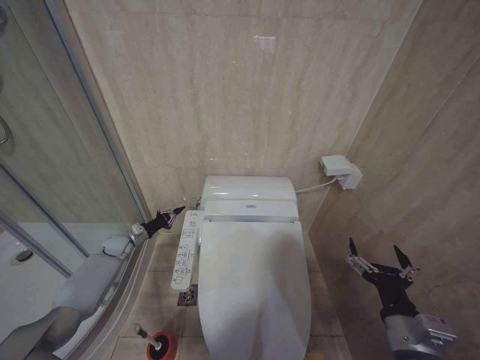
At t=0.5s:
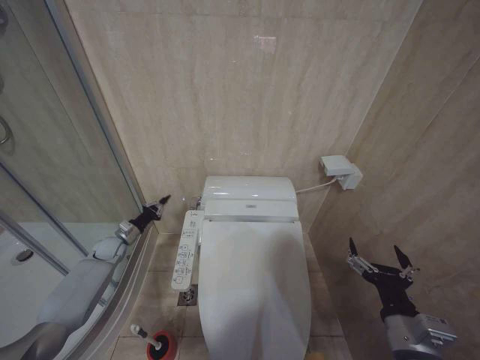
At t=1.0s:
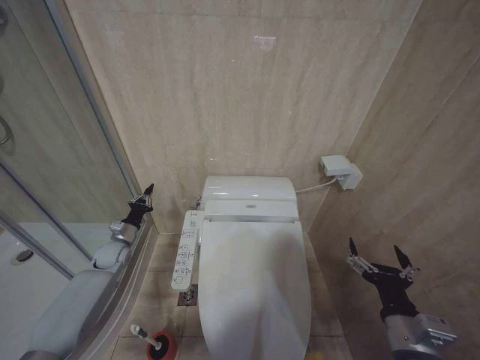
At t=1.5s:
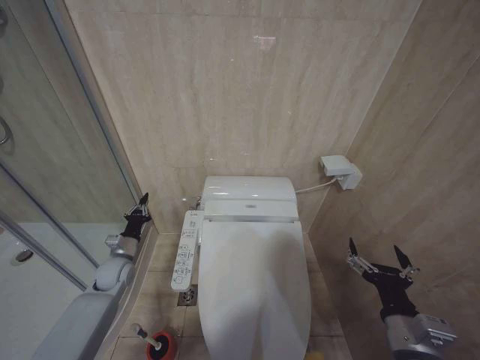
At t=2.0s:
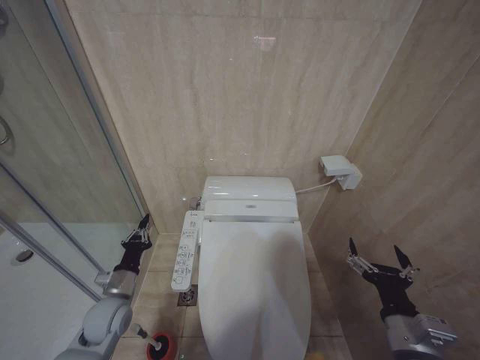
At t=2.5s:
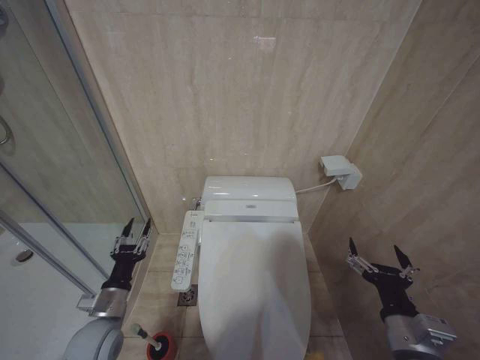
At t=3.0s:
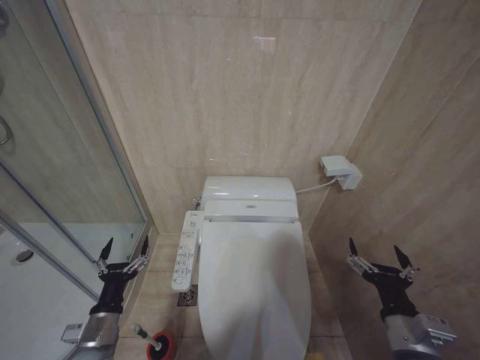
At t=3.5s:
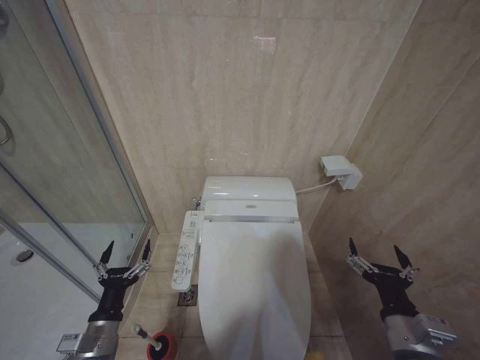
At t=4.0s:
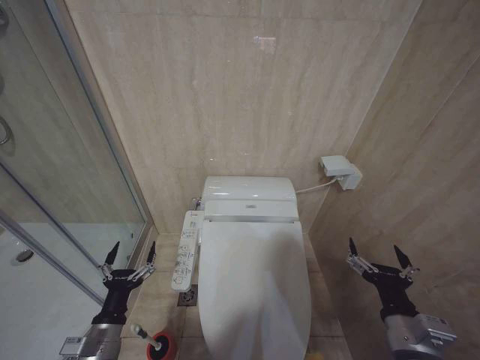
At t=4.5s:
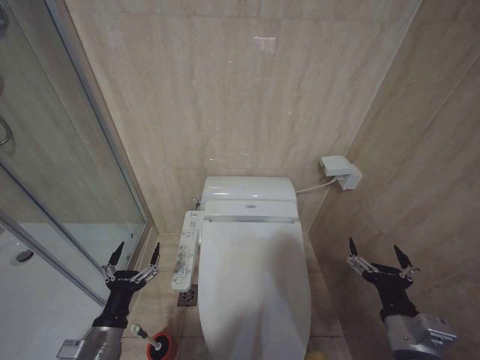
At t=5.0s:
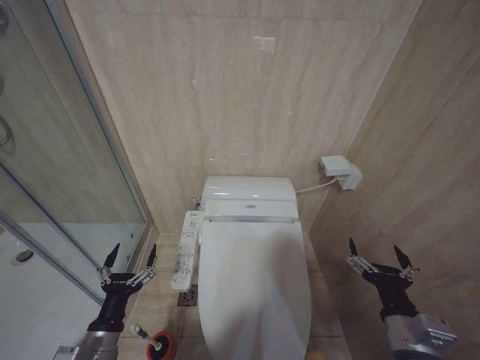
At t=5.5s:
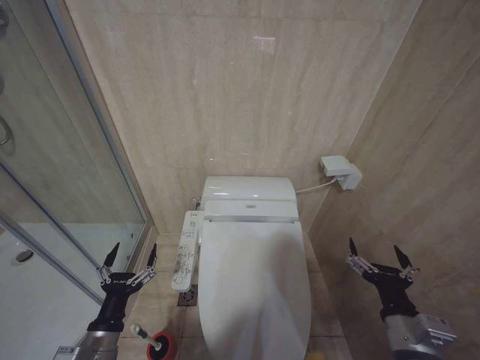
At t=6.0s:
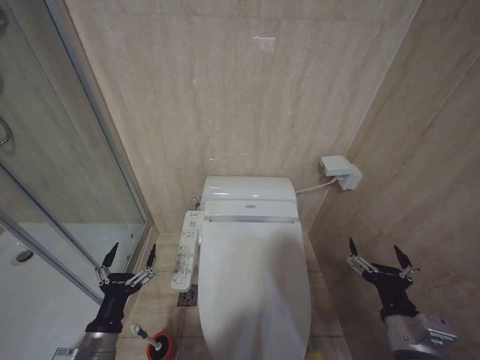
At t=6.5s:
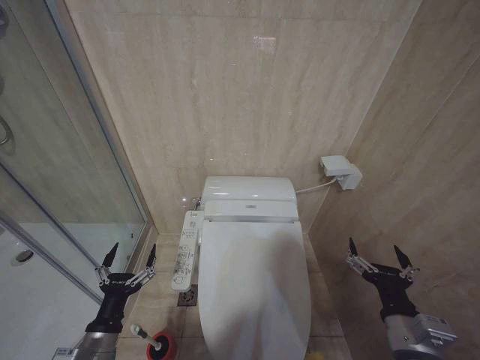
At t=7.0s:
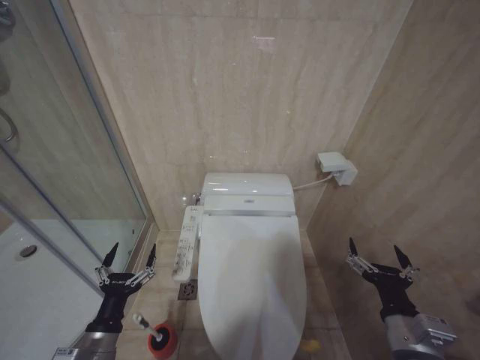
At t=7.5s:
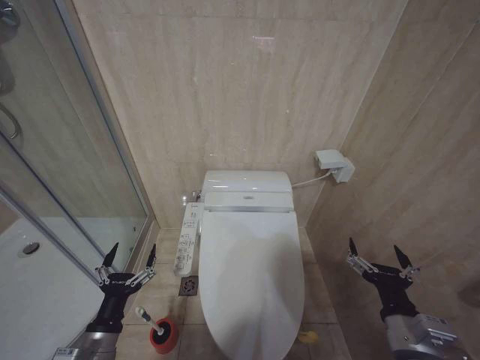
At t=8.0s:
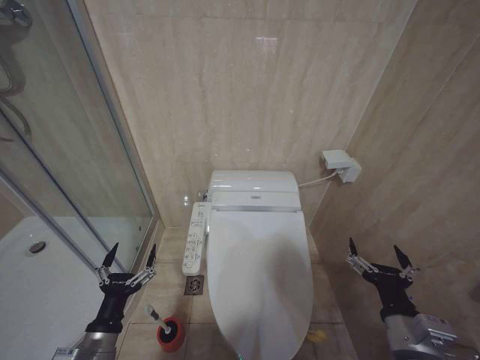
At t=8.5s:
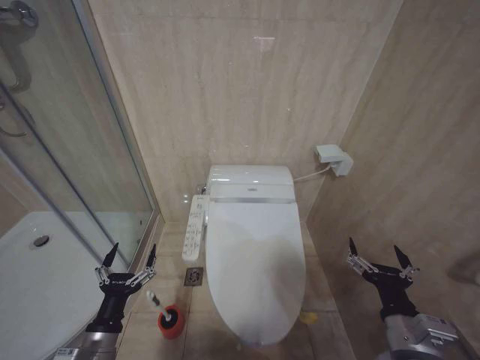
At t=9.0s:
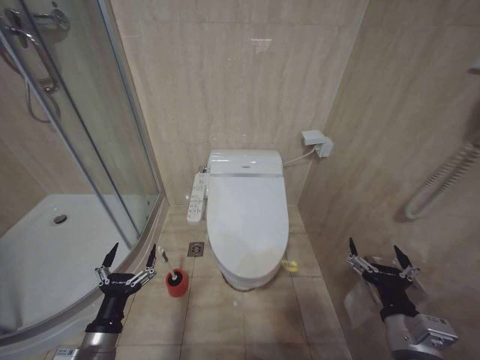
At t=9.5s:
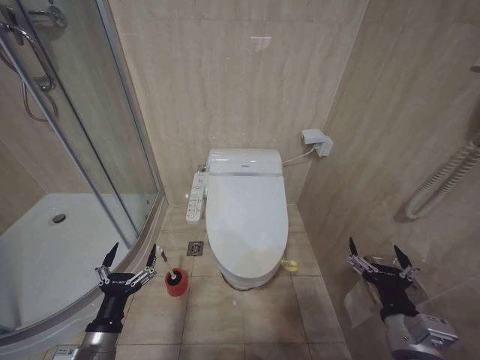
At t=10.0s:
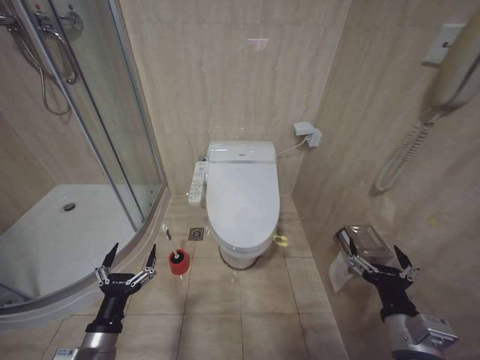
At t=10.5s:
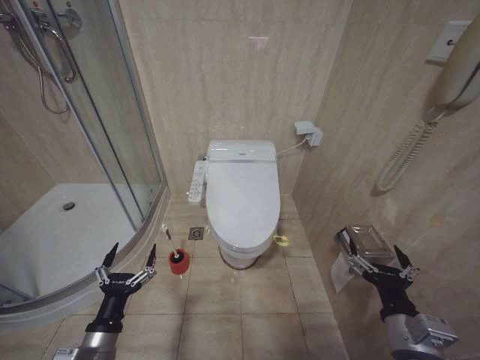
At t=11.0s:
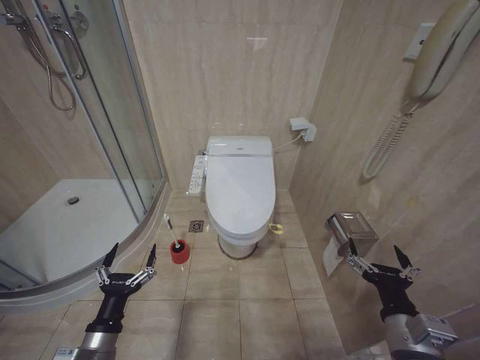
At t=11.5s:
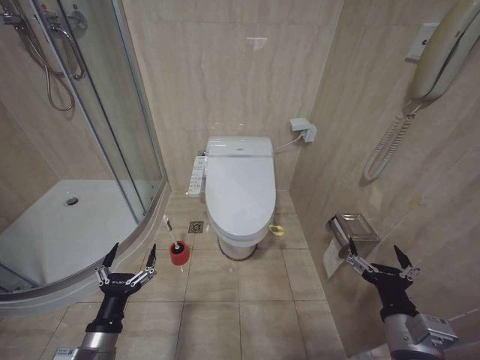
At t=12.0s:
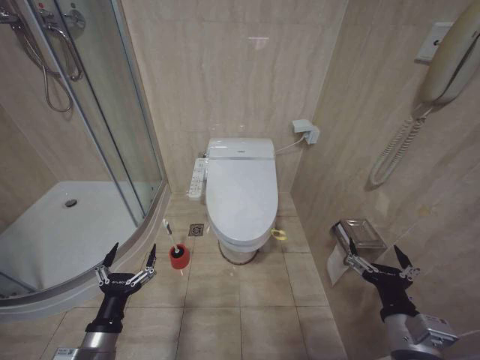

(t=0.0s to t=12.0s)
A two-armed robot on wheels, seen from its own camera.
Task of the whole recording: Open the toilet lid, clean the toilet bowl with a toilet brush, close the toilet lid, and flush.
t=0.0s - t=2.0s: The left gripper travels backward and to the right by approximately 25 cm.
t=2.0s - t=4.0s: The left gripper shifts some 15 cm backward, and opens its fingers.
t=4.0s - t=6.0s: The grippers stay close to where they were, moving slightly.
t=6.0s - t=8.0s: The two grippers keep their place.
t=10.0s - t=12.0s: Neither gripper changes place.

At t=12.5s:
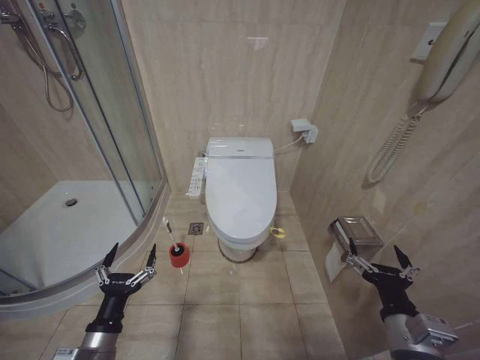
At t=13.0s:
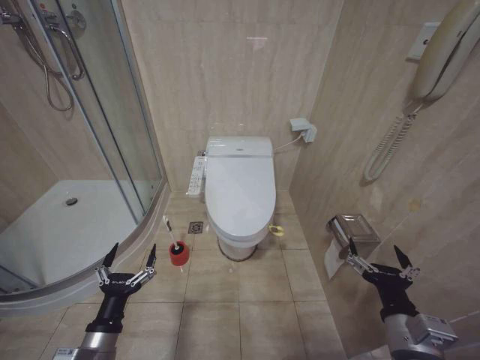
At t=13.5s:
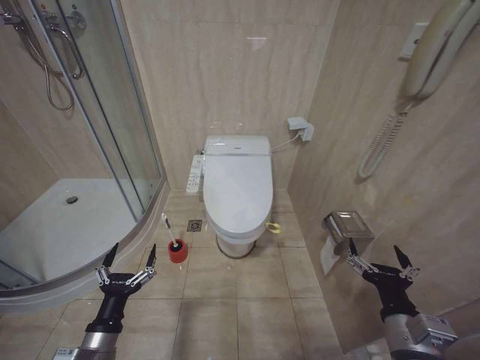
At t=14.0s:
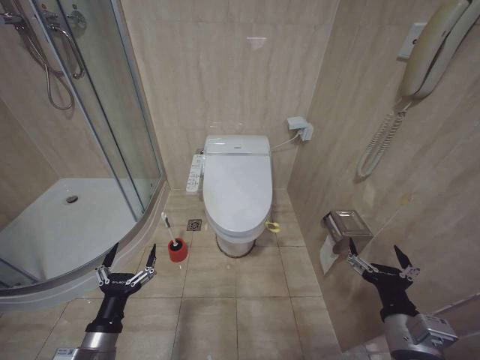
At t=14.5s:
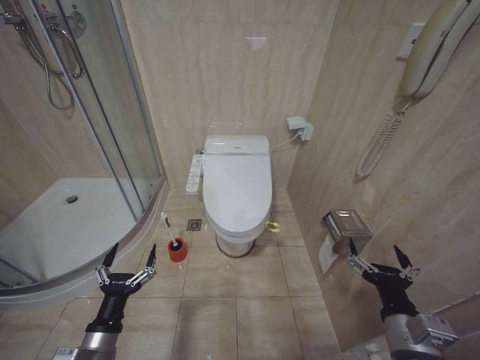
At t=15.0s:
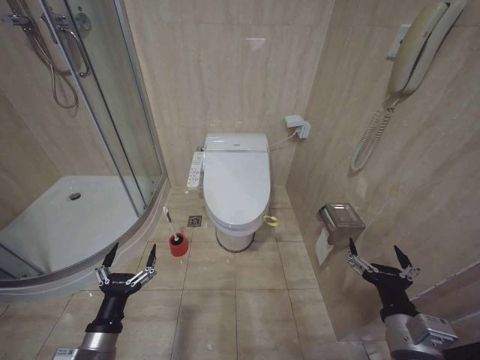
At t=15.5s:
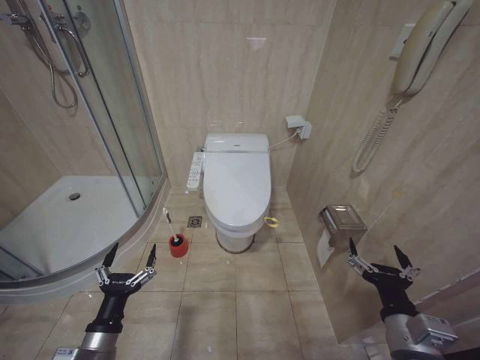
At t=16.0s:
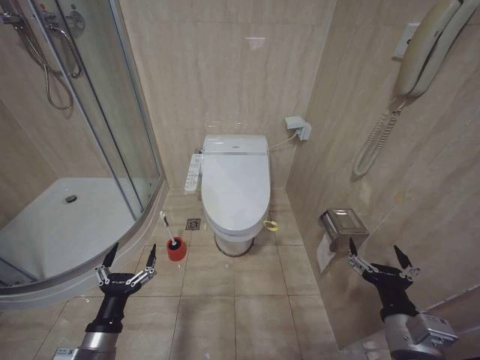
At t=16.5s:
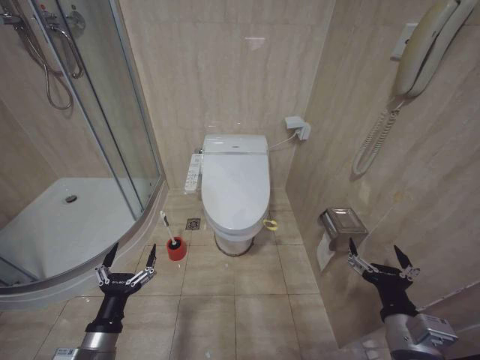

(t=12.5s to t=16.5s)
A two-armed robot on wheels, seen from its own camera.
Task of the whole recording: Open the toilet lid, clean the toilet bowl with a toilet brush, close the toilet lid, and flush.
t=12.5s - t=16.5s: Neither gripper changes place.

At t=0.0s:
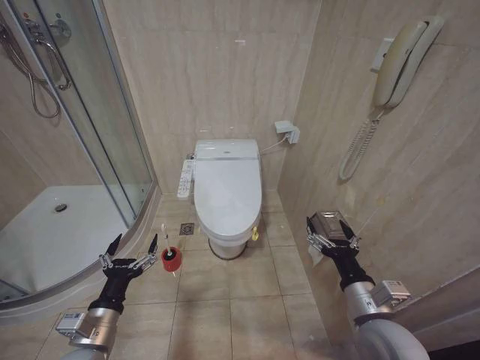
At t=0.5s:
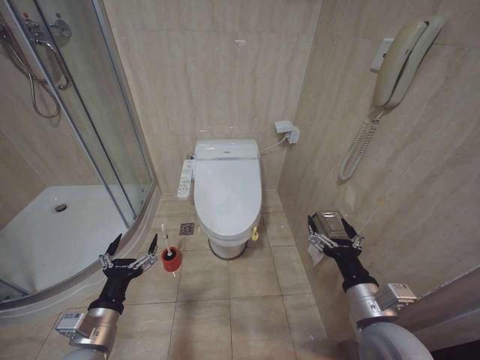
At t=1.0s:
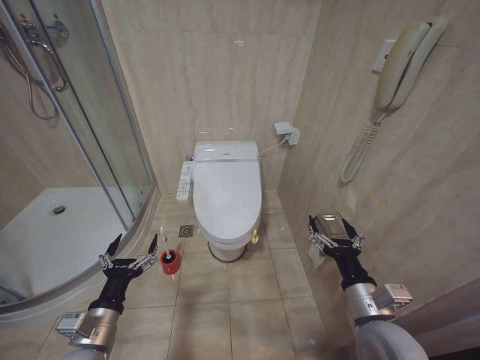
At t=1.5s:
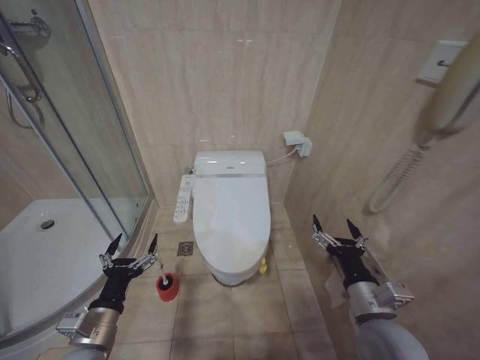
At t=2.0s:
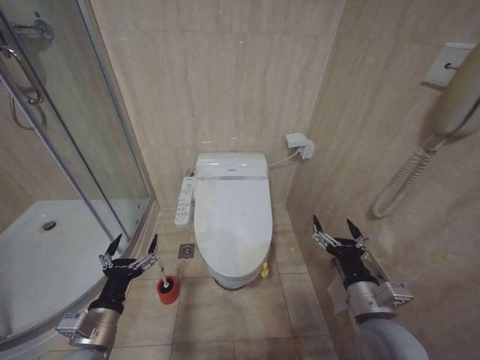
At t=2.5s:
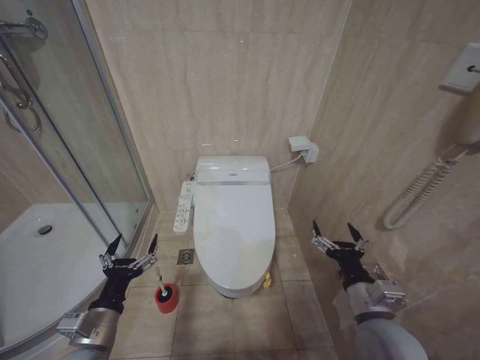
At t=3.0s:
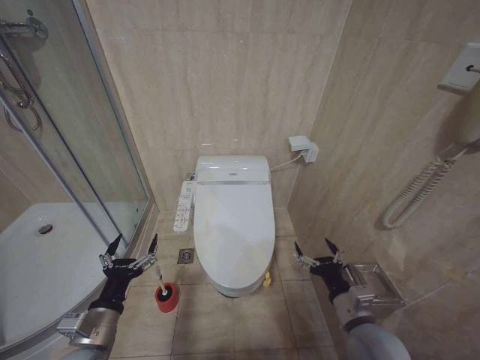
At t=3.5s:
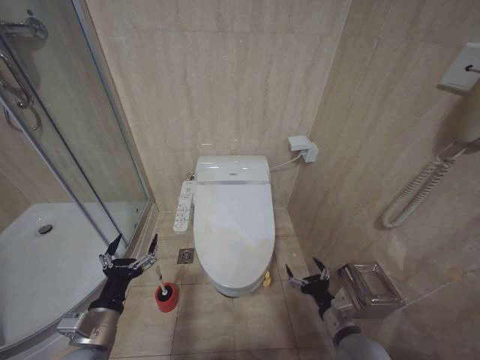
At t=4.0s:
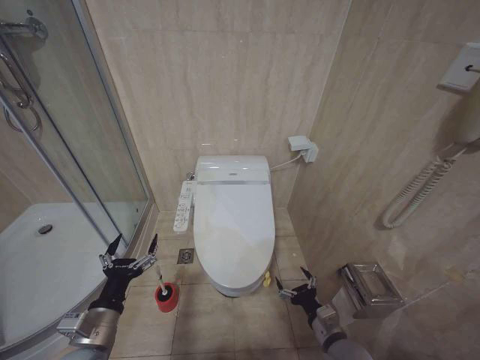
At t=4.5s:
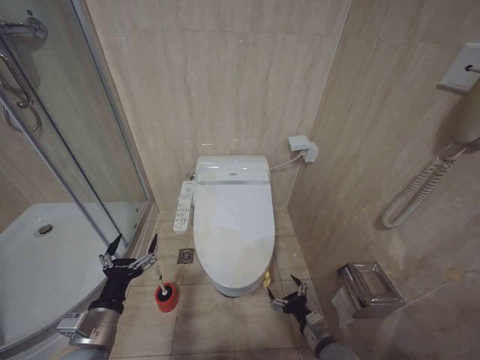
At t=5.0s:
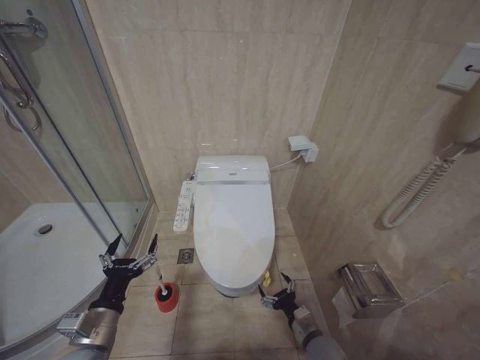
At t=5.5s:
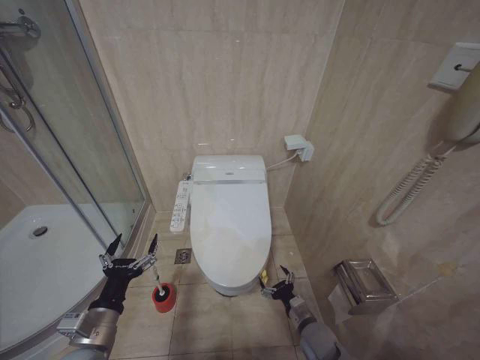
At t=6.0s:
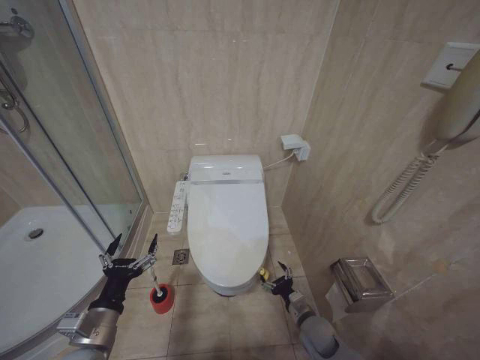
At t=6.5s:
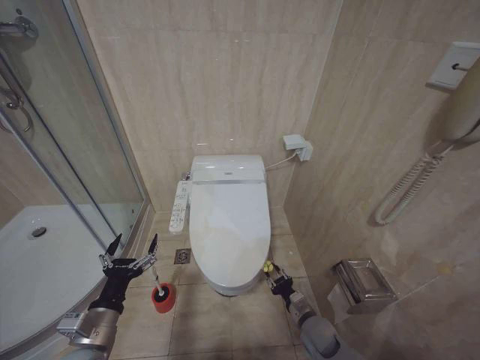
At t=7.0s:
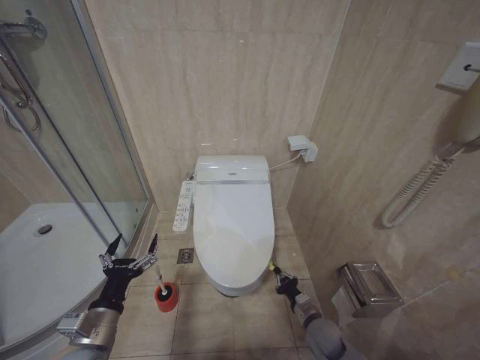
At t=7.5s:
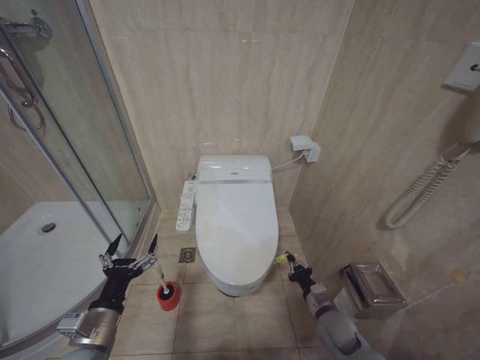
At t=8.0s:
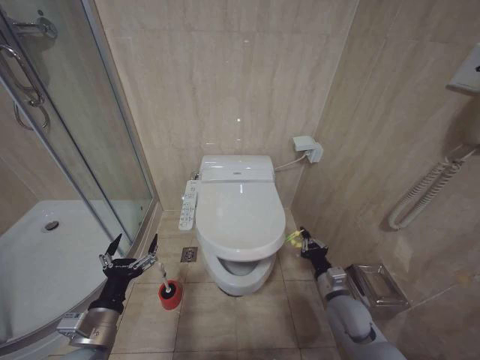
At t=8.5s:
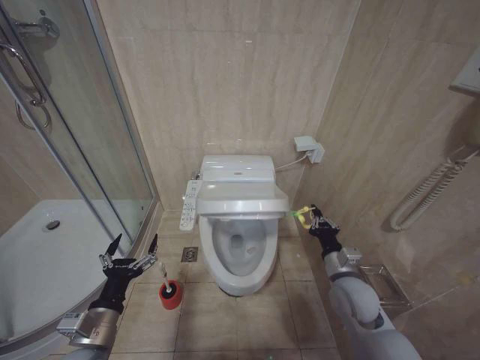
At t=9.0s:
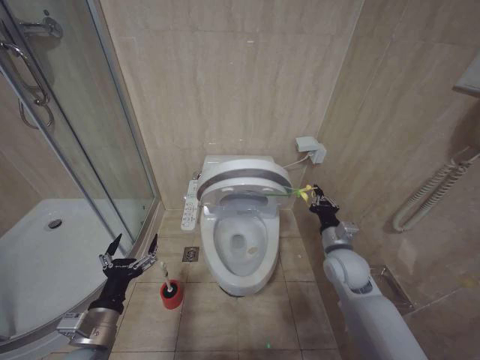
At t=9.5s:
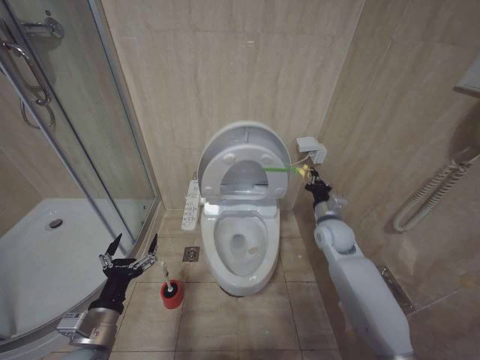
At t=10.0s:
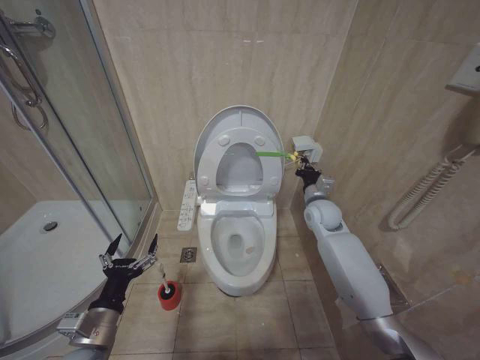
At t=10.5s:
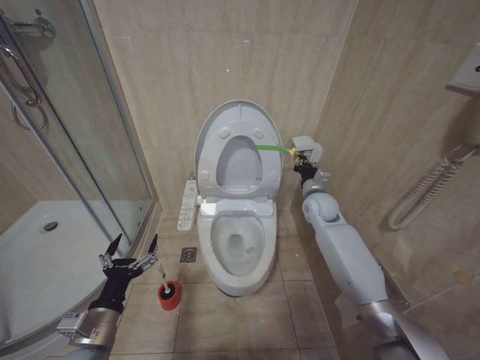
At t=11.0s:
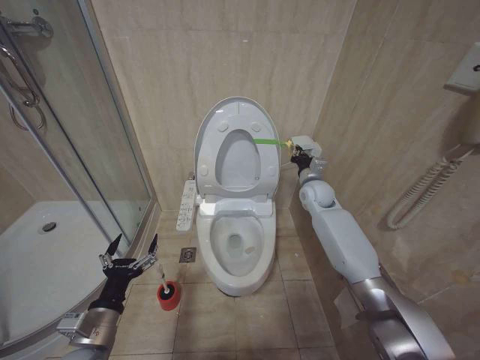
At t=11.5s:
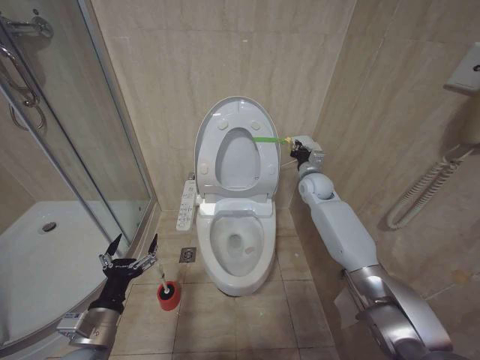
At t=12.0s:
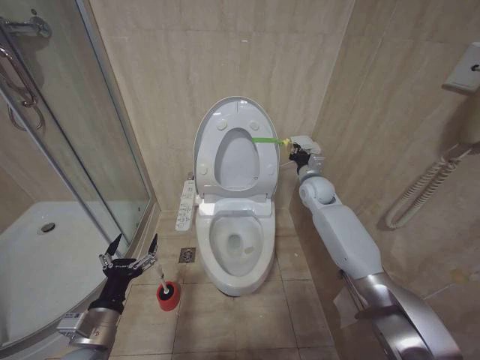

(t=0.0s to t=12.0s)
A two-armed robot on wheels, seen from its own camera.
Task of the whole recording: Open the toilet lid, clean the toilet bowl with a toilet brush, close the toilet lid, and flush.
t=2.0s - t=4.0s: The right gripper is displaced downward by roughly 15 cm.
t=4.0s - t=6.0s: The right gripper is displaced downward and forward by roughly 10 cm.
t=6.0s - t=8.0s: The right gripper travels upward and to the right by about 10 cm, and closes its fingers.
t=8.0s - t=10.0s: The right gripper travels forward and upward by about 25 cm.
t=10.0s - t=12.0s: The right gripper goes roughly 5 cm forward.
